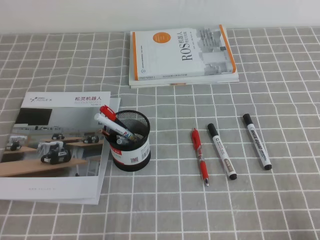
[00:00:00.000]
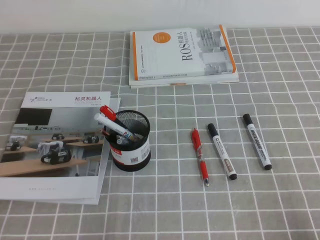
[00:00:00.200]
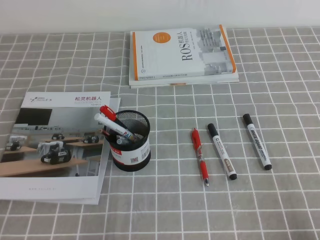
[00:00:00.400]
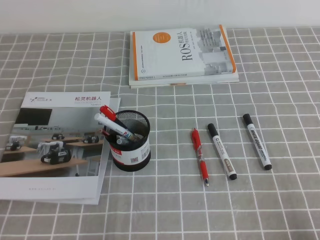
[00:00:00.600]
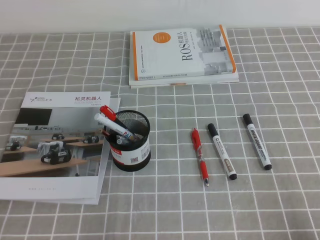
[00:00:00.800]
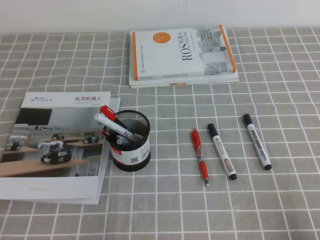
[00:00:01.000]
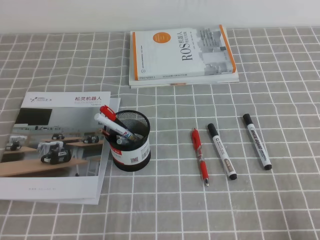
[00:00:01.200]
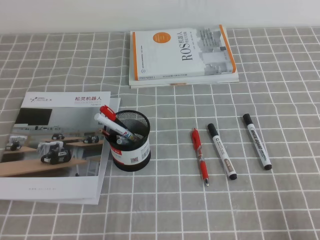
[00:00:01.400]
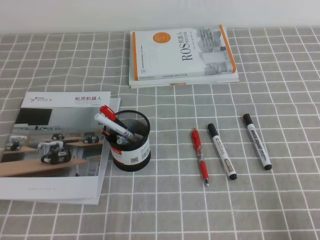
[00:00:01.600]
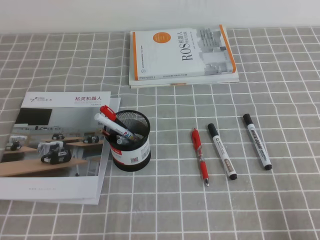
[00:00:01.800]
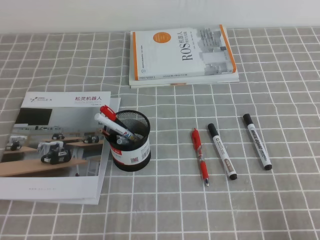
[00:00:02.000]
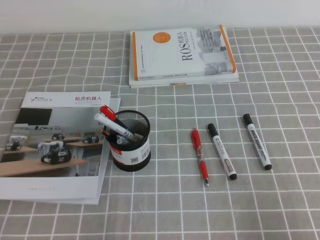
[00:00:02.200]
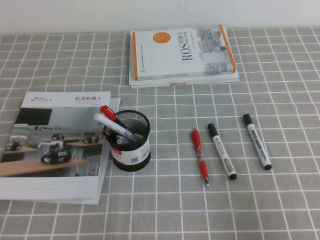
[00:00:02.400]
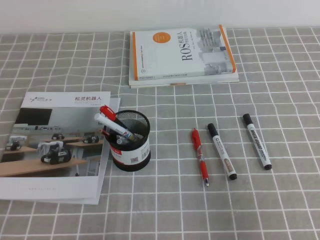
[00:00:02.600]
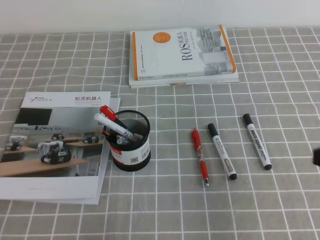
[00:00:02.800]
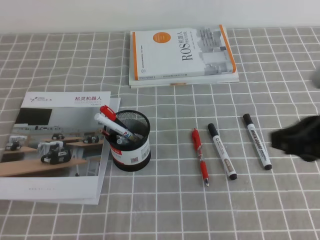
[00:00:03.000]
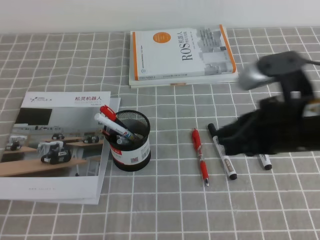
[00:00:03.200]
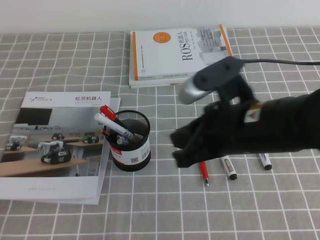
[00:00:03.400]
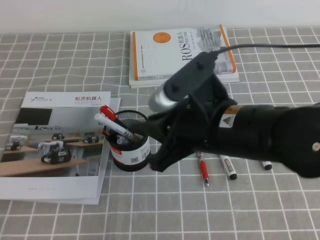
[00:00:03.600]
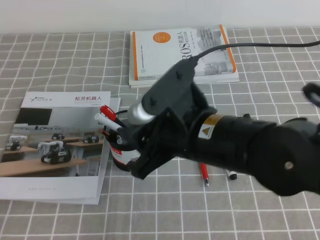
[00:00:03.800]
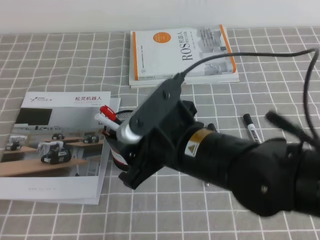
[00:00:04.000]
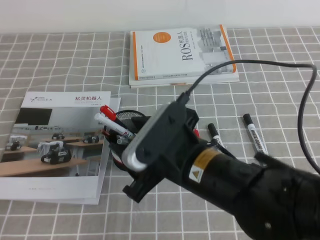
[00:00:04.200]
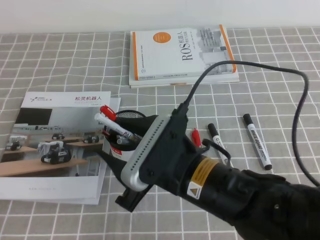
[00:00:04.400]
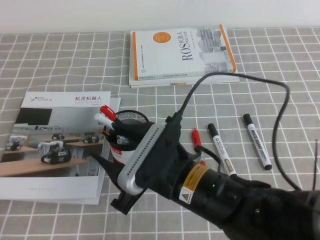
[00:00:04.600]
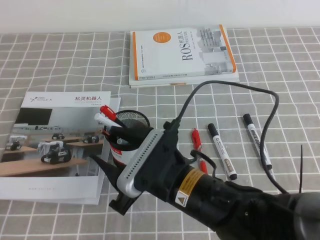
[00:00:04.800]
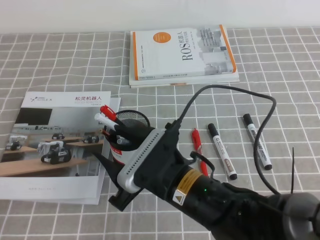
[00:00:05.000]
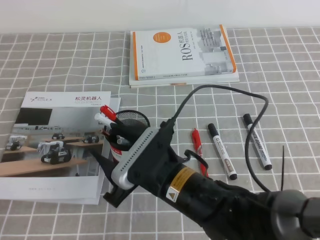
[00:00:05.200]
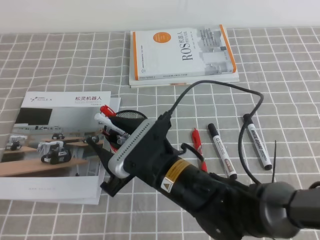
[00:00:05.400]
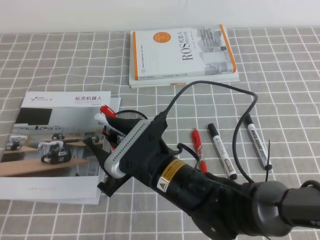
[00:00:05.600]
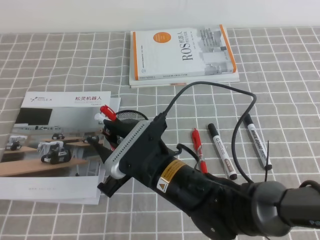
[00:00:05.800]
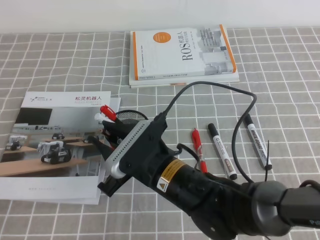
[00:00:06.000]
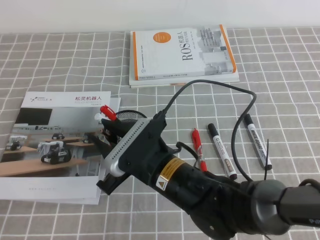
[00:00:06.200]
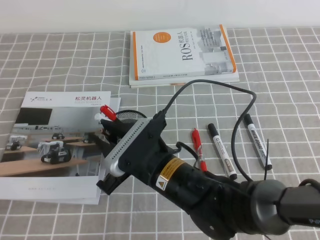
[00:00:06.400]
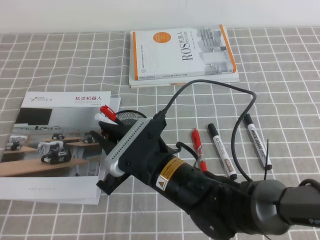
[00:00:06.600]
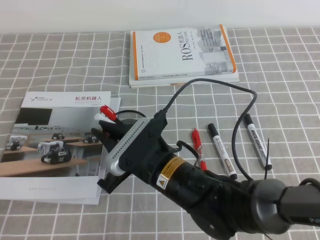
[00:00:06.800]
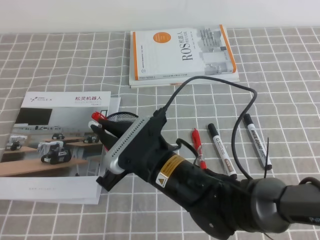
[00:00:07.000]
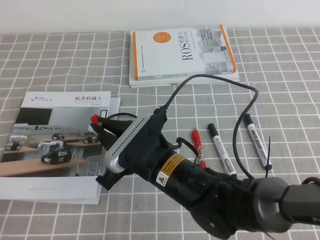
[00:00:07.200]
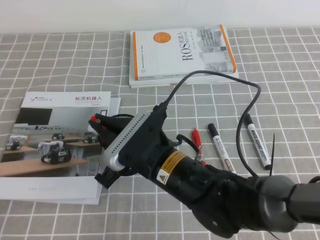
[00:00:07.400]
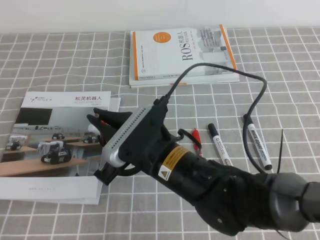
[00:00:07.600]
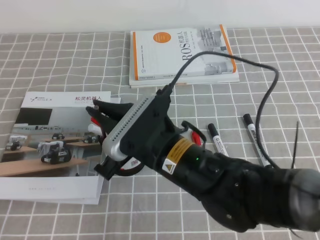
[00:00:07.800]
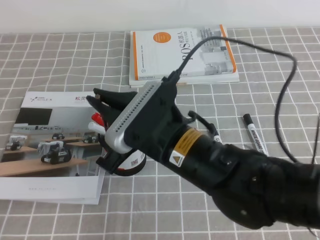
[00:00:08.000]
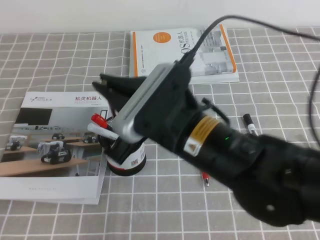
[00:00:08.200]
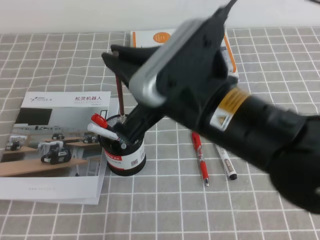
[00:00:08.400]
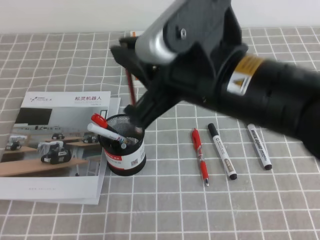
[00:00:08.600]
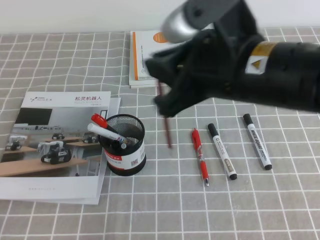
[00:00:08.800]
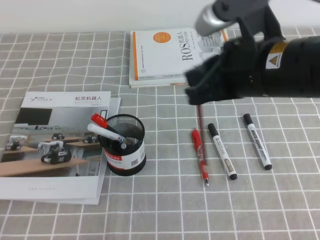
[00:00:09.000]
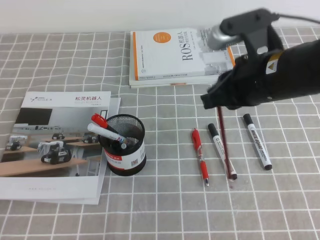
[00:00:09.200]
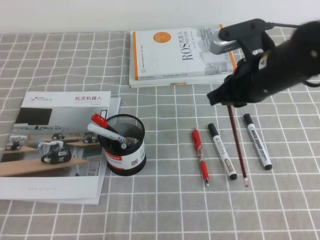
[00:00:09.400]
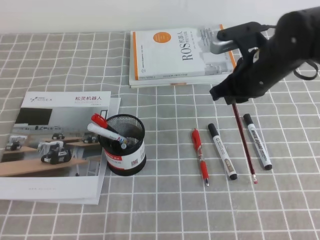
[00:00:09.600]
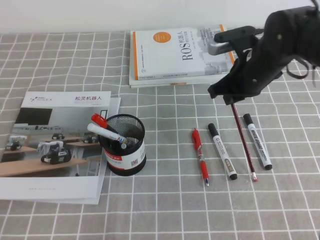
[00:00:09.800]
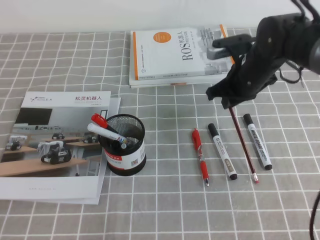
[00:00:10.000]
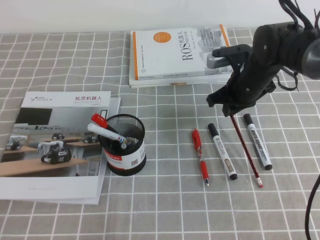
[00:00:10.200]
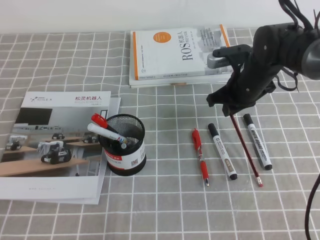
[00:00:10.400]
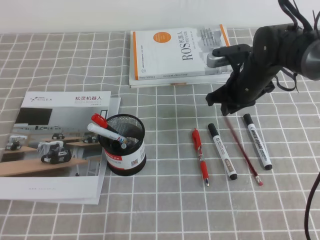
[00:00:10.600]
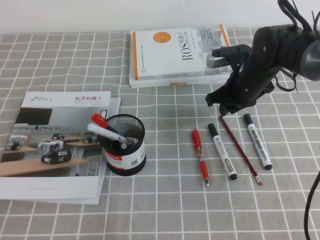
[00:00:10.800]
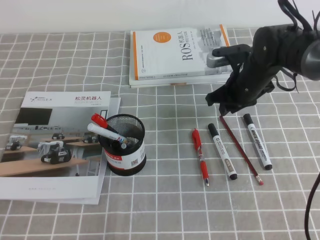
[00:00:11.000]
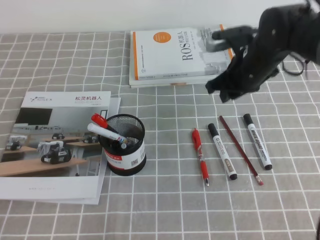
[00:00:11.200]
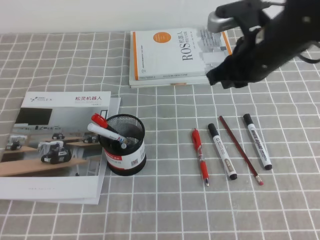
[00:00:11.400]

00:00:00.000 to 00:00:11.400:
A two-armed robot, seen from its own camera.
00:00:01.400 to 00:00:02.800: The right gripper shifts approximately 15 cm upward and forward.
00:00:02.800 to 00:00:04.200: The right gripper goes roughly 25 cm to the left, and opens.
00:00:04.200 to 00:00:05.600: The right gripper is displaced downward by approximately 5 cm.
00:00:05.600 to 00:00:07.200: The right gripper closes.
00:00:07.200 to 00:00:08.600: The right gripper heads upward and to the right, covering roughly 20 cm.
00:00:08.600 to 00:00:10.000: The right gripper heads forward, downward and to the right, covering approximately 30 cm.
00:00:10.000 to 00:00:11.400: The right gripper goes some 10 cm upward and backward.

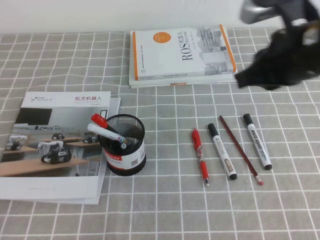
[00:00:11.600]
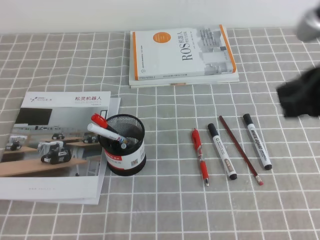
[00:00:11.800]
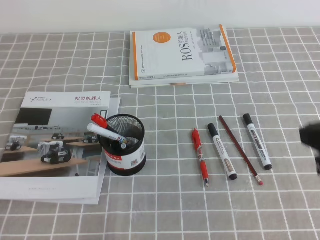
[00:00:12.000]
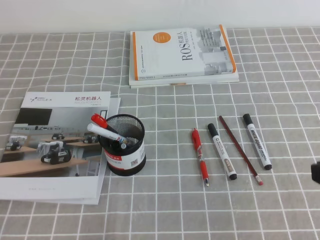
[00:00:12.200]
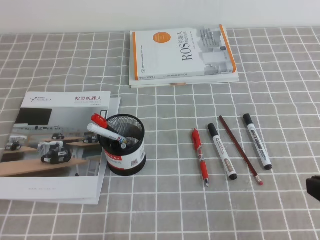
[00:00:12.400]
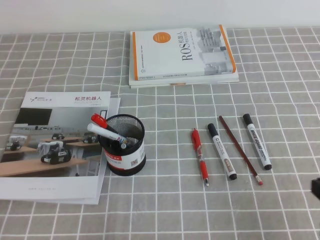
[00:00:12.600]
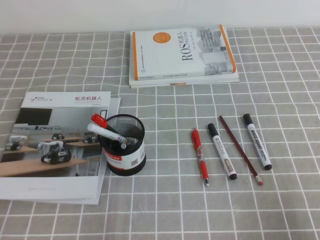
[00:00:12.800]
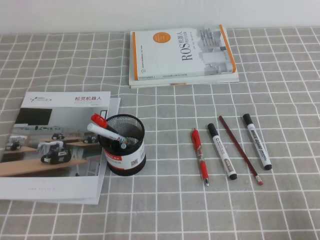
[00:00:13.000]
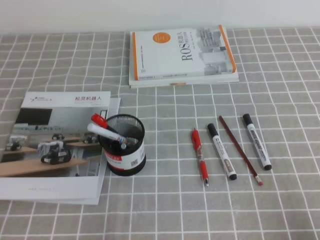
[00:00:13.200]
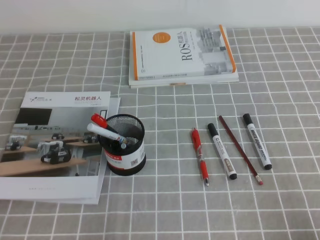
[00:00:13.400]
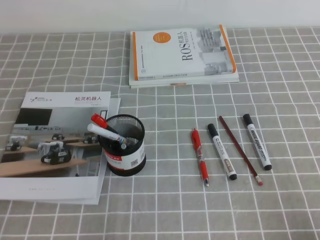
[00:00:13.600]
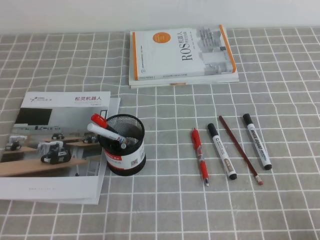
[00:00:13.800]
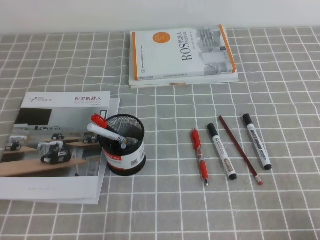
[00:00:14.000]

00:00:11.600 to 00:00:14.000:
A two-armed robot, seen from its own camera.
Step, 00:00:11.600 to 00:00:14.000: Pick up the pen from the pen holder.
00:00:11.600 to 00:00:12.800: The right gripper travels backward, downward and to the right by some 25 cm.
